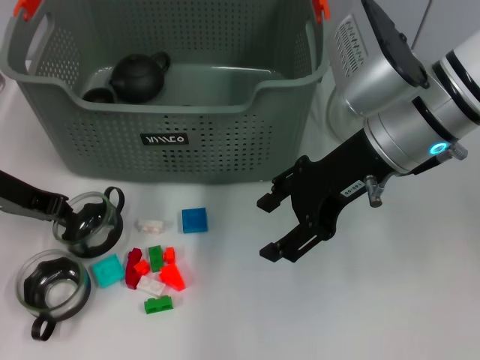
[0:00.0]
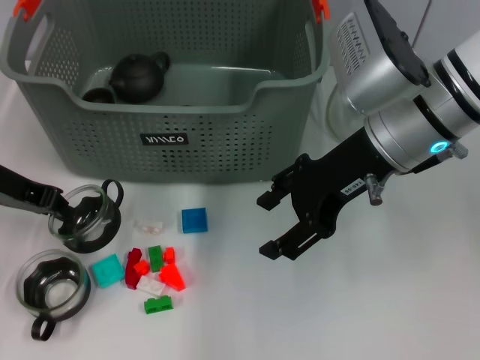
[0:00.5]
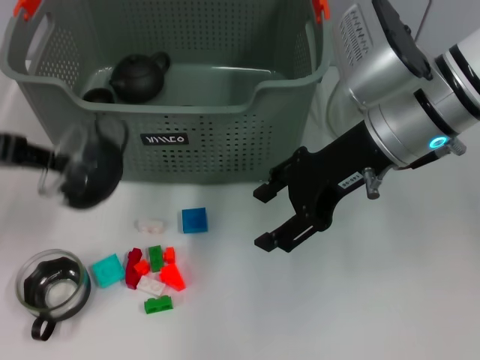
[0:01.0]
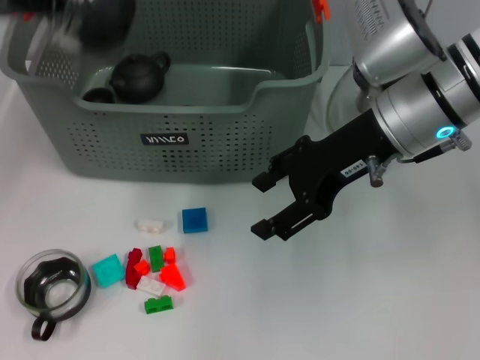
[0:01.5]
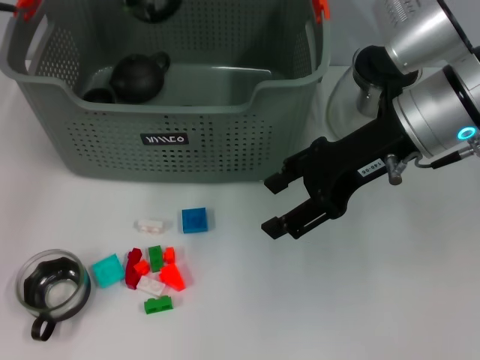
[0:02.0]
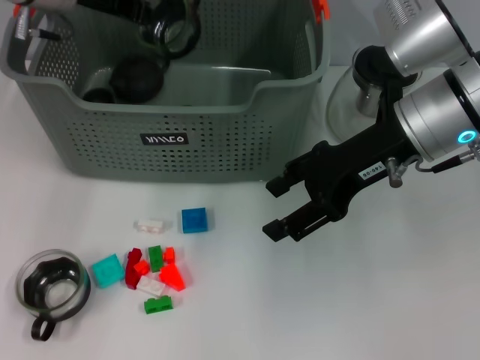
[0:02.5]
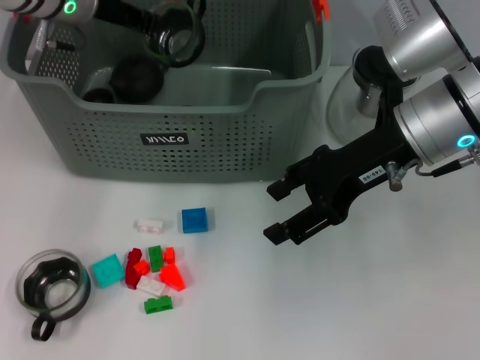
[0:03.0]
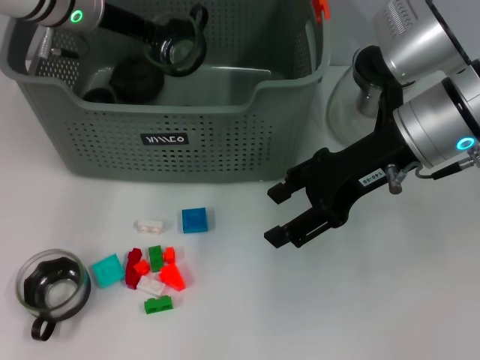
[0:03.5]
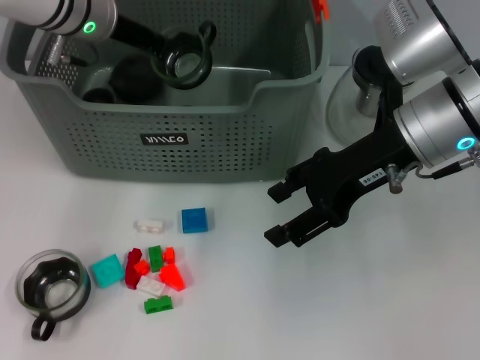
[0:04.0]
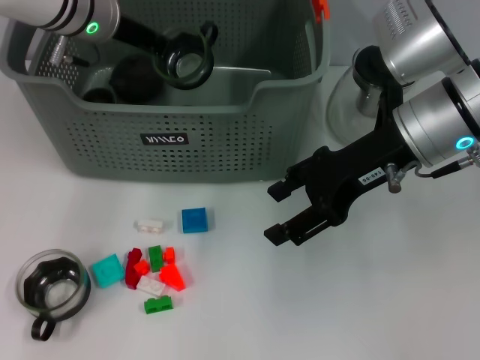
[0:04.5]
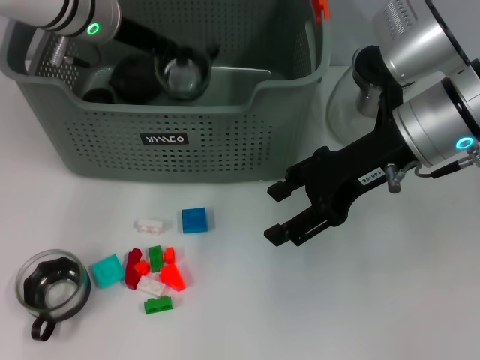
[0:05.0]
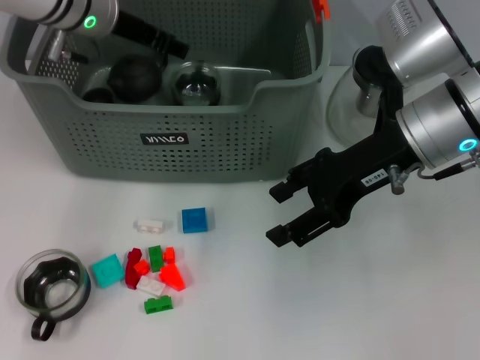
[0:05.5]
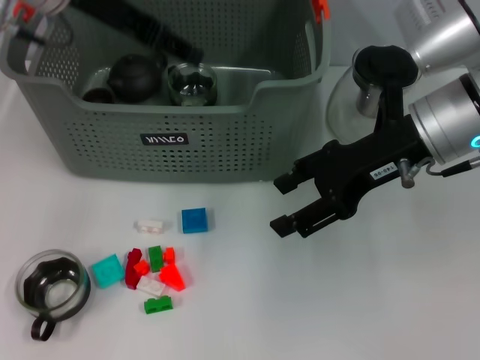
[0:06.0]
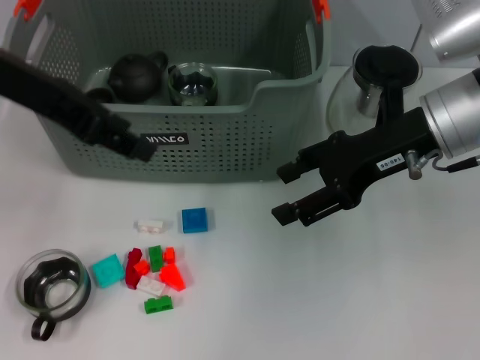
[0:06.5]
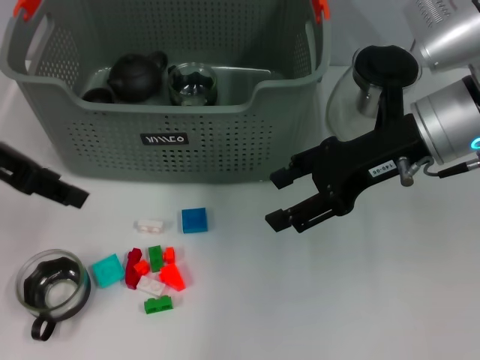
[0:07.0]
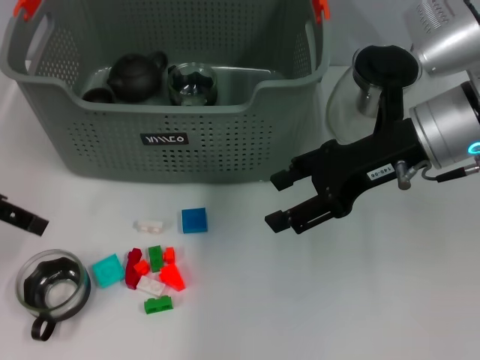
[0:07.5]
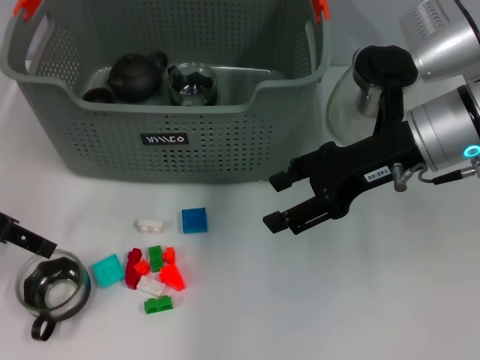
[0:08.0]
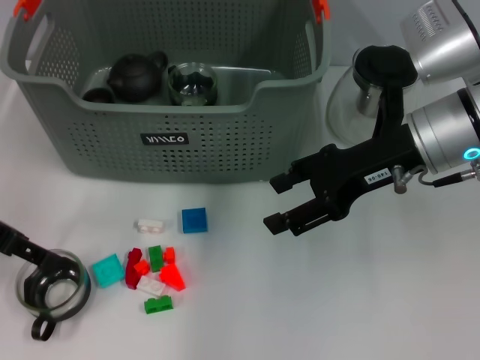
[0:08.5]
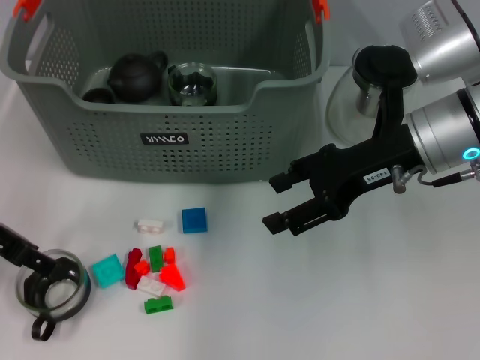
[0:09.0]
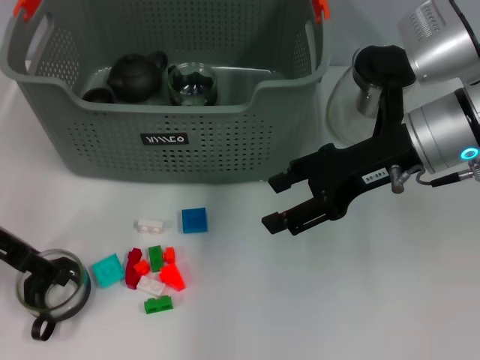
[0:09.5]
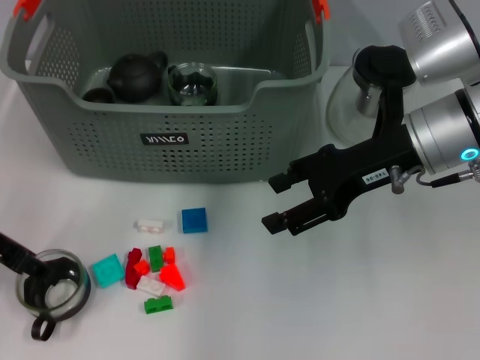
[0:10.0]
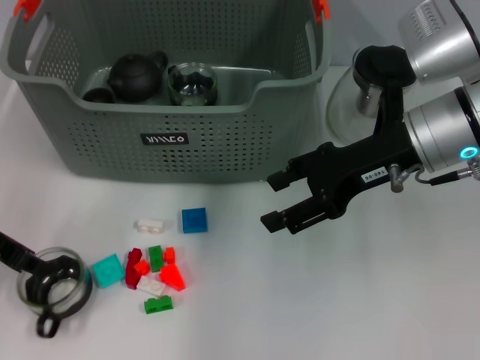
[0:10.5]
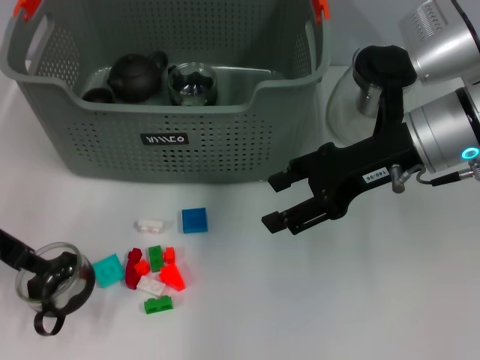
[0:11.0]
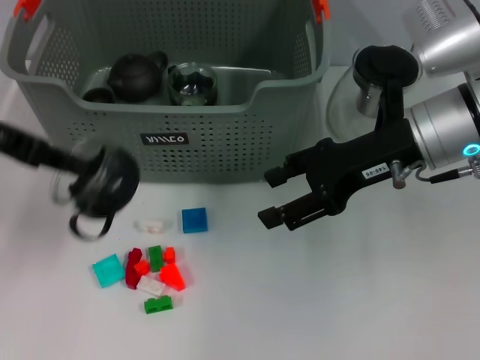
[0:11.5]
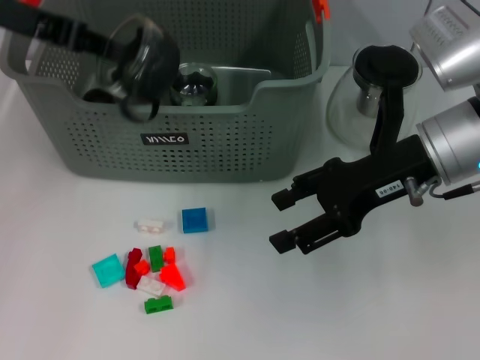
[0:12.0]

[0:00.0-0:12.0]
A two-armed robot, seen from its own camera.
Task of the whole recording: pick up the teacup on the table and place it into the storage bin, pick up the block on the table and place it into the storage bin.
Step, 0:01.0 to 0:05.5: Place the cup in the storage box with left gripper.
Step, 0:06.0 to 0:11.0: Grasp the cup with left gripper.
0:00.0 to 0:02.0: The left gripper travels upward and forward by about 15 cm.
0:02.0 to 0:04.0: The left gripper travels to the right and downward by roughly 10 cm.
0:04.0 to 0:06.0: The left gripper is displaced upward and backward by some 10 cm, and opens up.
0:06.0 to 0:08.0: The left gripper shifts roughly 20 cm to the left, downward and backward.
0:08.0 to 0:10.0: There are only small adjustments of the grippers.
0:10.0 to 0:12.0: The left gripper moves upward and forward, approximately 15 cm, and closes up.

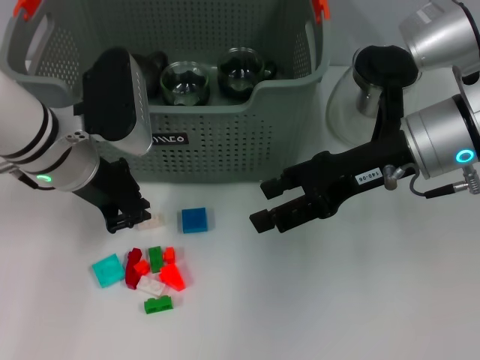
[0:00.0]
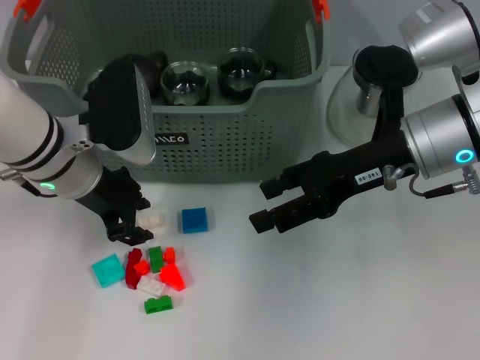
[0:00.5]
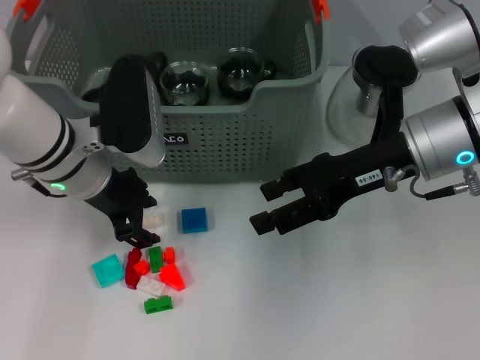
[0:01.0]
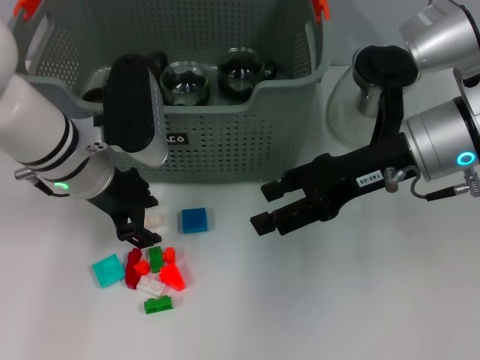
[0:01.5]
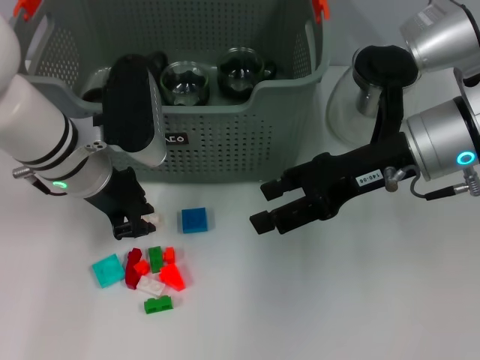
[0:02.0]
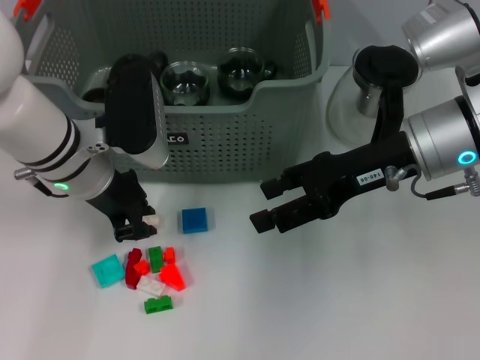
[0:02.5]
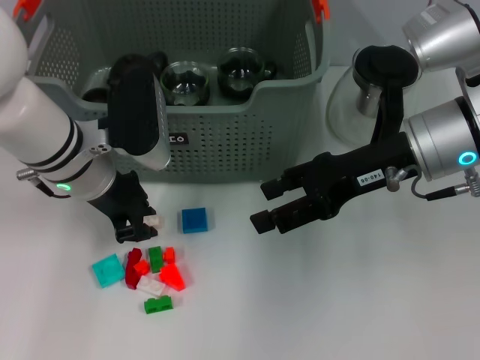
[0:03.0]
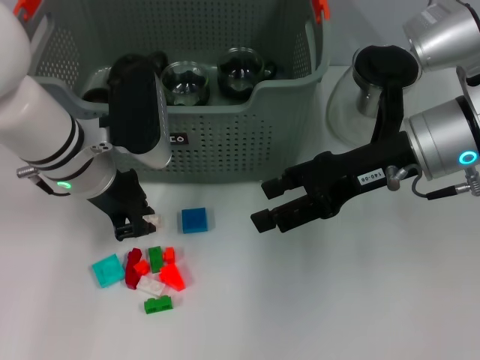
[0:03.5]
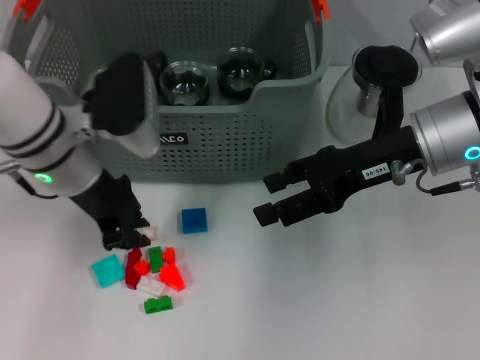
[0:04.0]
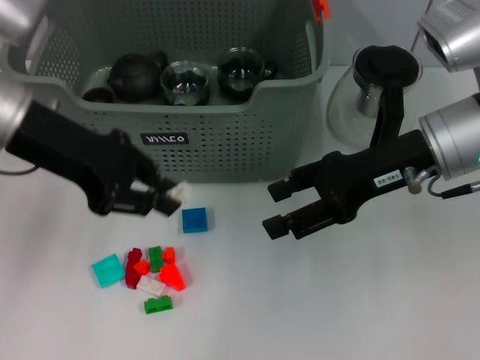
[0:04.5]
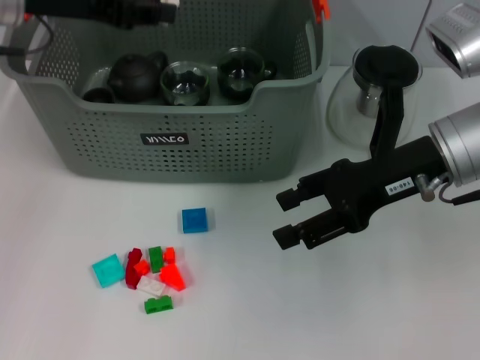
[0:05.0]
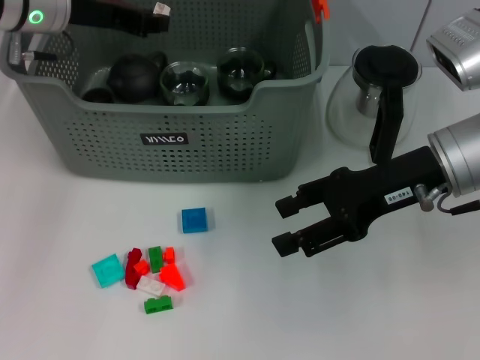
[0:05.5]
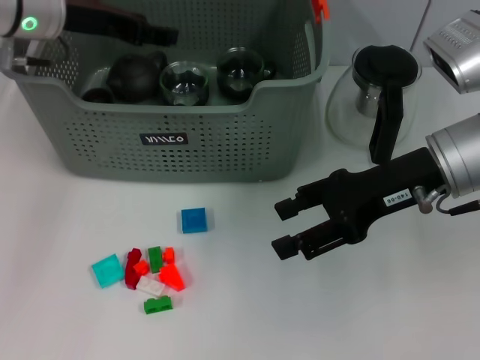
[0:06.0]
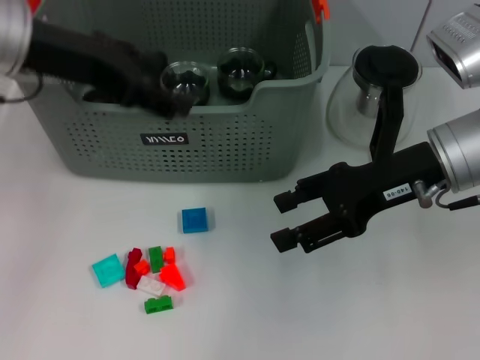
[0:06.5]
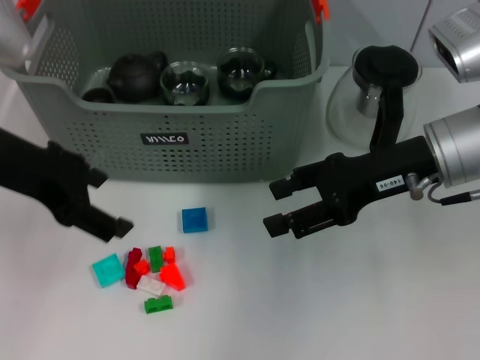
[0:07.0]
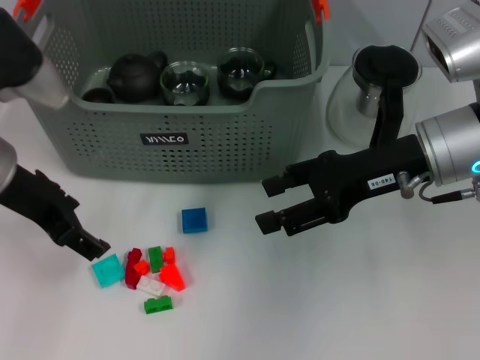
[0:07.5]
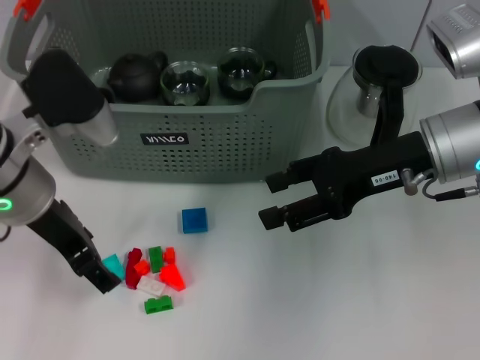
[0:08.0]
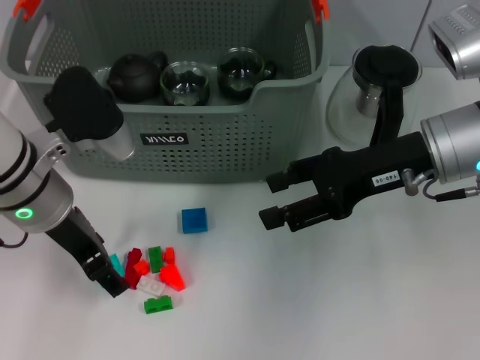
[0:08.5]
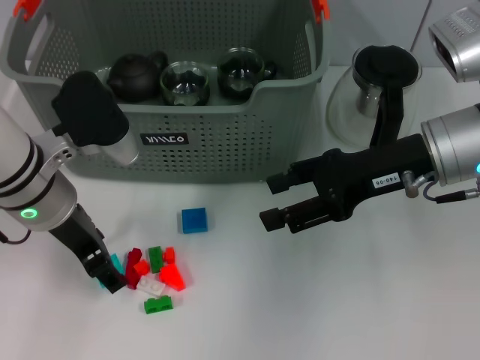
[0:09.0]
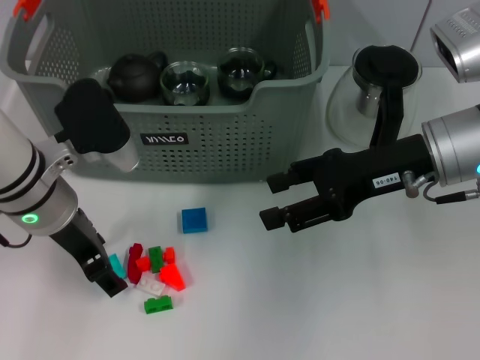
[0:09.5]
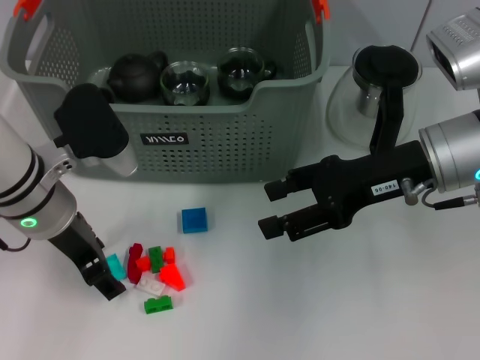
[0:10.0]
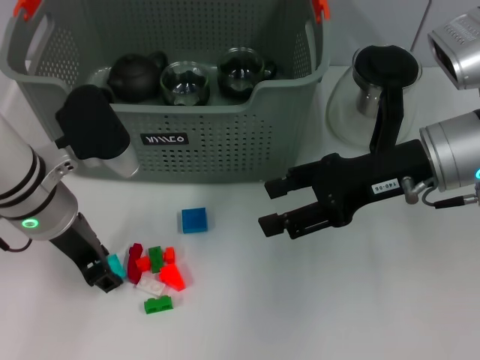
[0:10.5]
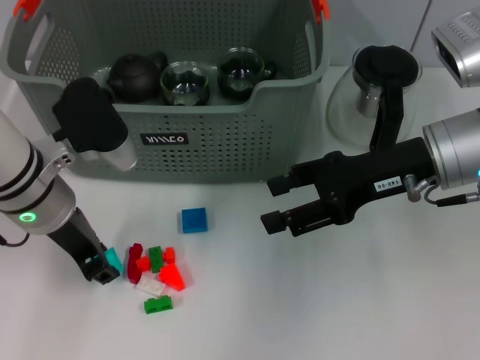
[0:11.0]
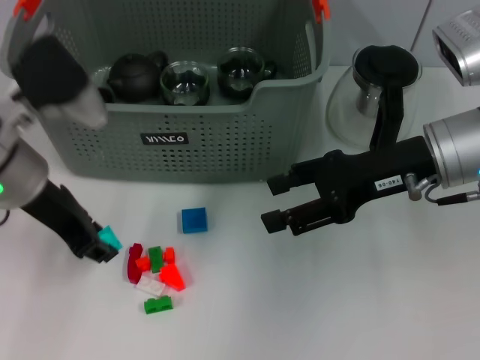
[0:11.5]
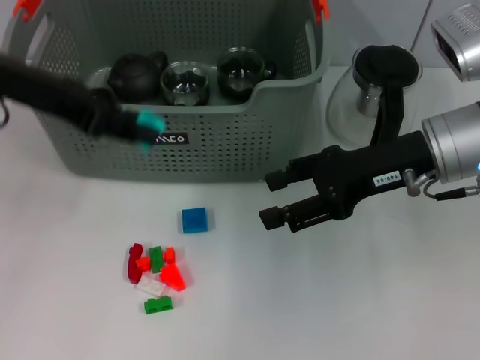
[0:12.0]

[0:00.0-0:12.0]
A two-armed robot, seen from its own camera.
Task of the whole recording: pick up the teacup on the table and place it into the storage bin, pick up the block on the table and place it into the storage bin.
Step, 0:00.0 to 0:04.0: Grasp the white block with left gripper.
Step, 0:04.5 to 0:06.0: Place the white block in the storage box with left gripper.
Step, 0:06.5 to 0:11.0: Grasp the light blue block with left gripper.
0:00.0 to 0:02.0: The left gripper opens.
0:02.0 to 0:04.0: The grippers make only small movements.
0:04.0 to 0:06.0: The left gripper goes approximately 10 cm forward, upward and to the left, and opens.
0:06.0 to 0:08.0: The left gripper goes some 15 cm backward, and opens its fingers.
0:08.0 to 0:10.0: The grippers move only a little.
0:10.0 to 0:12.0: The left gripper moves upward, some 15 cm, and closes up.

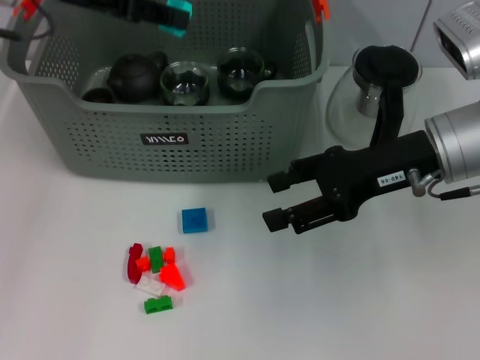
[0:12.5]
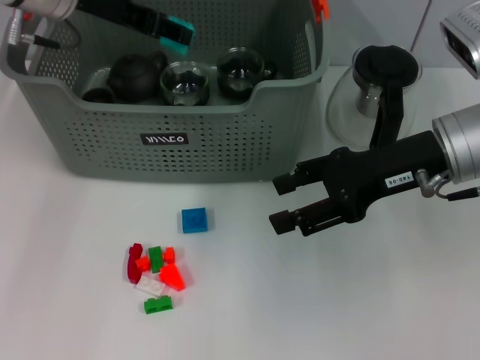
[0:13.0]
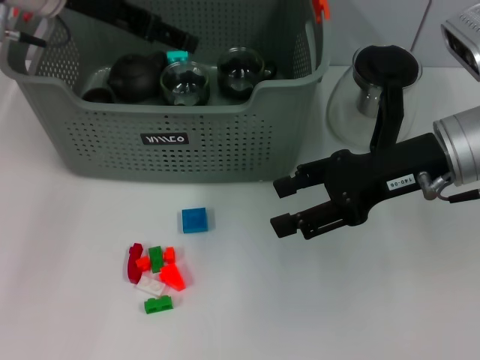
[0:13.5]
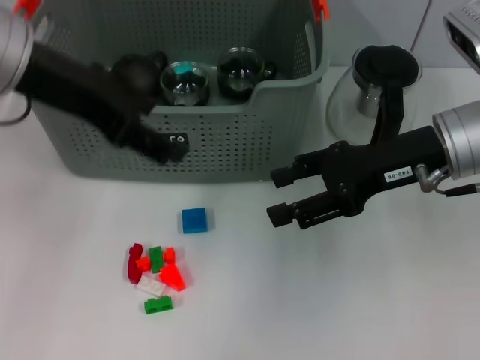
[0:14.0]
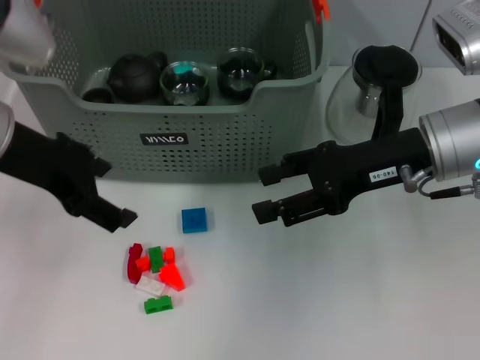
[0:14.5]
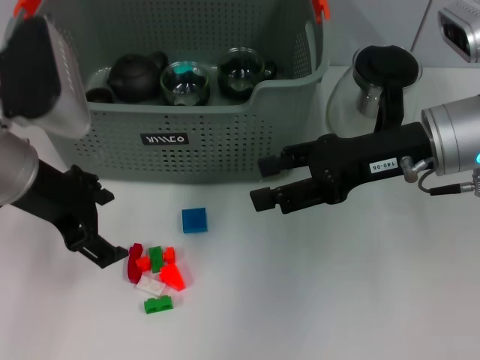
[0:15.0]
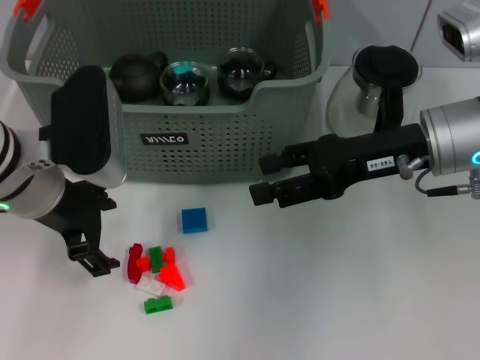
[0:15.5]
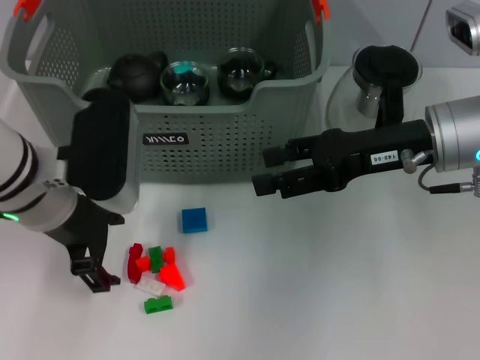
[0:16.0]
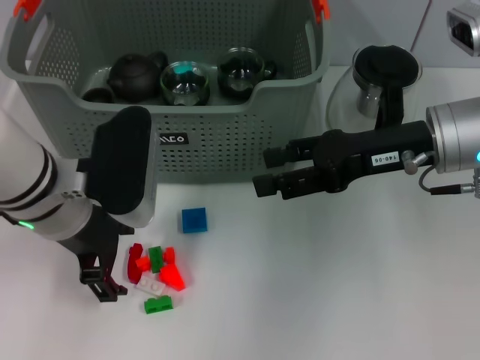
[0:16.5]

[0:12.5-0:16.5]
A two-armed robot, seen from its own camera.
Task of the whole recording: pick up the teacup on the table and place it into the storage bin, pick up the block on the table and place it into the storage bin.
0:12.5 to 0:14.5: The left gripper heads backward, covering about 10 cm, and opens up.
0:14.5 to 0:16.5: The left gripper travels downward and to the right by about 10 cm.
